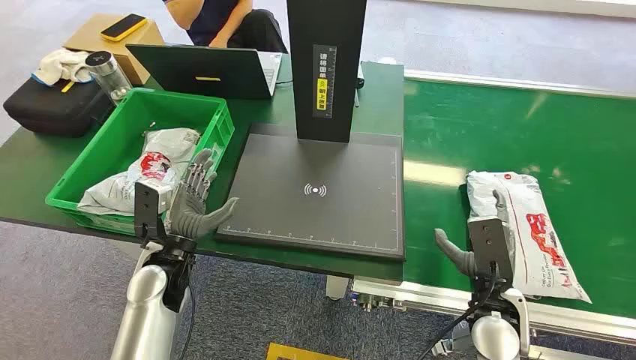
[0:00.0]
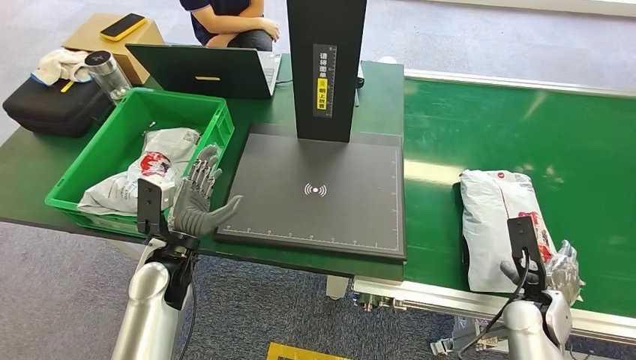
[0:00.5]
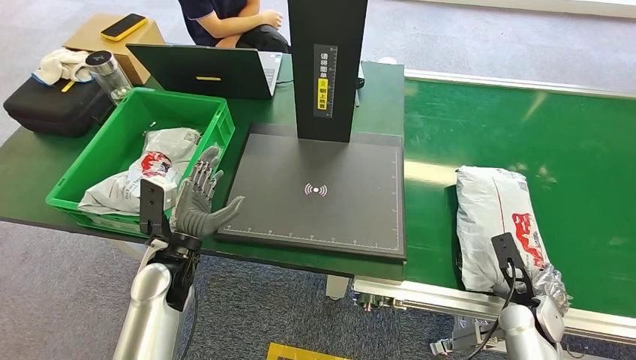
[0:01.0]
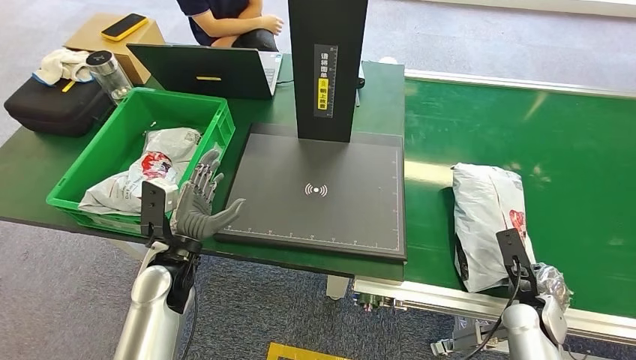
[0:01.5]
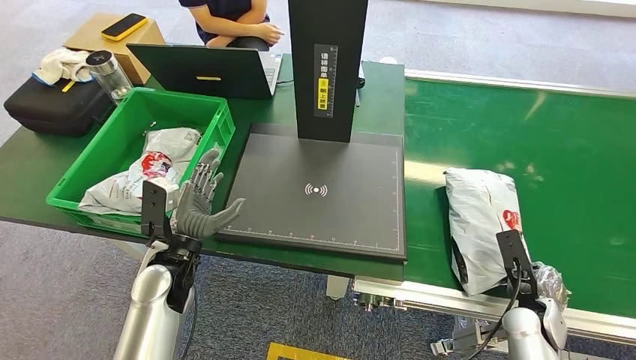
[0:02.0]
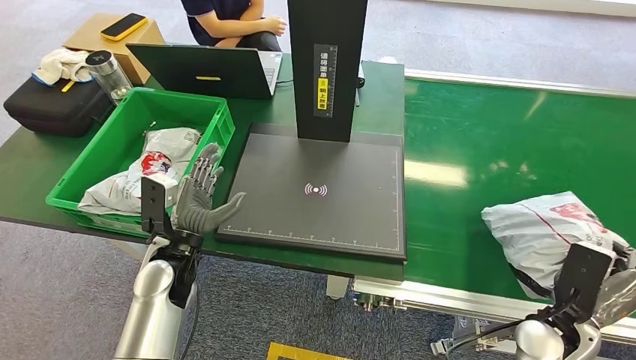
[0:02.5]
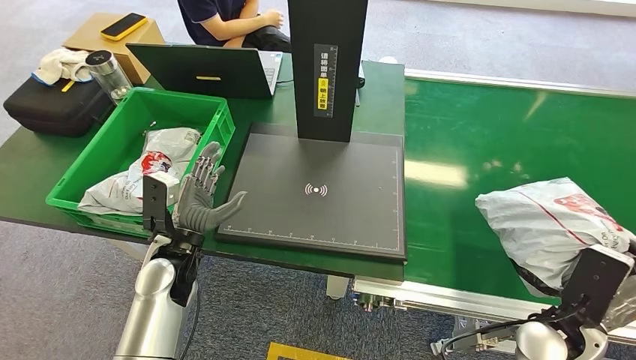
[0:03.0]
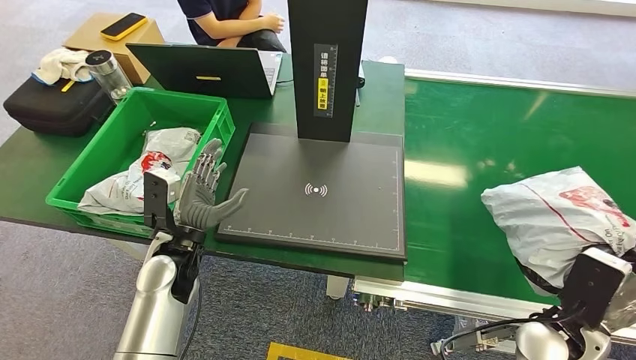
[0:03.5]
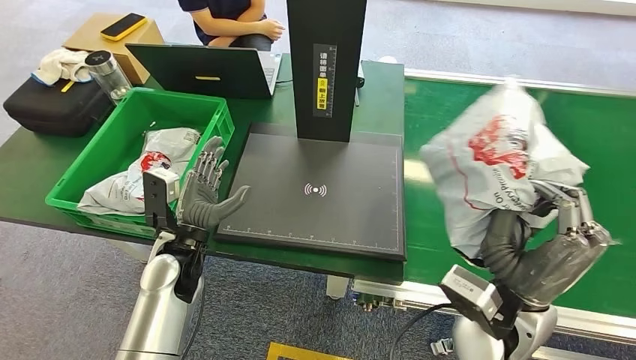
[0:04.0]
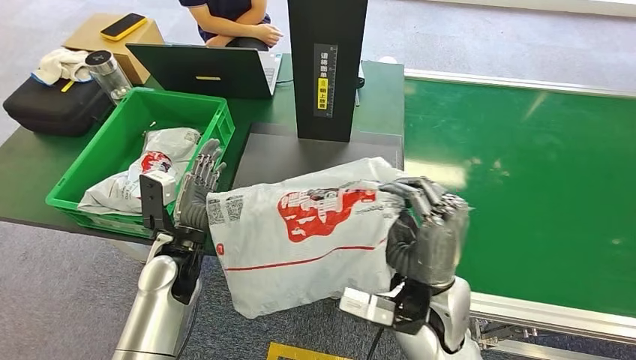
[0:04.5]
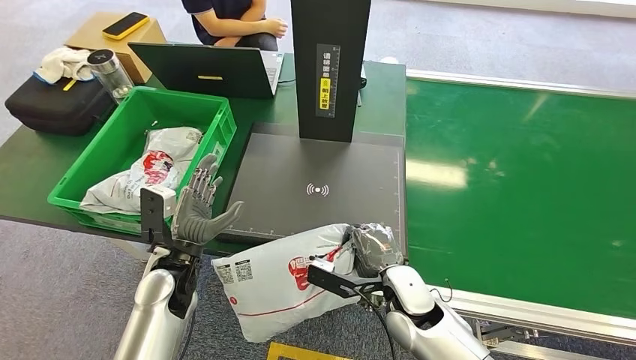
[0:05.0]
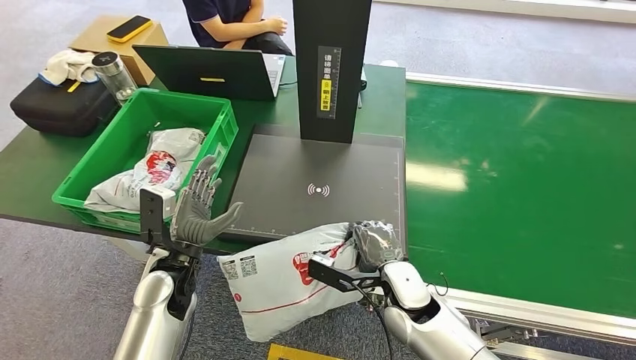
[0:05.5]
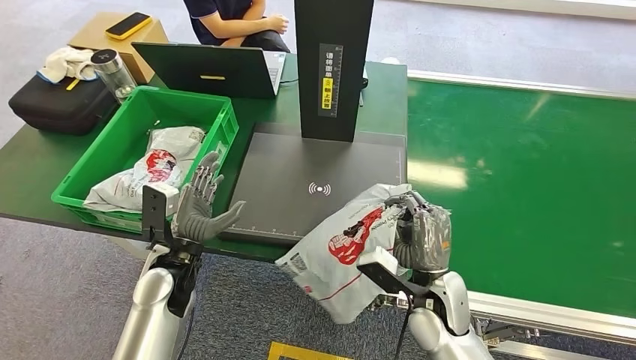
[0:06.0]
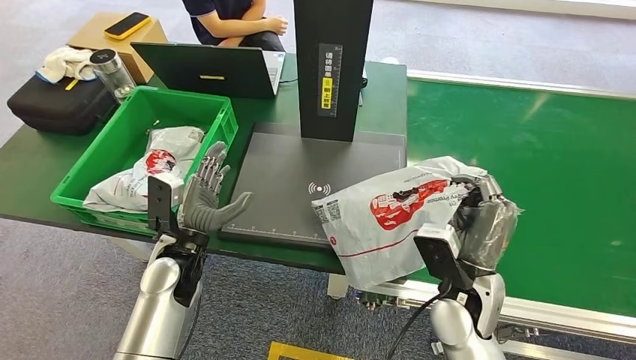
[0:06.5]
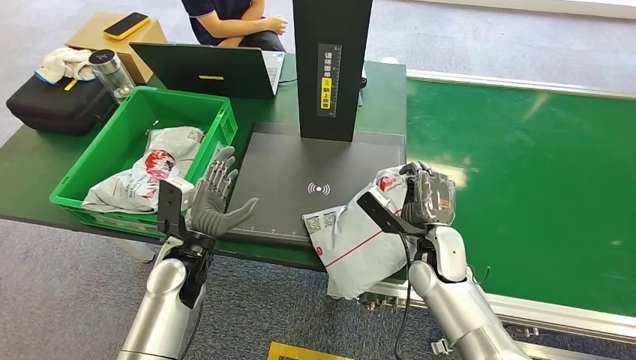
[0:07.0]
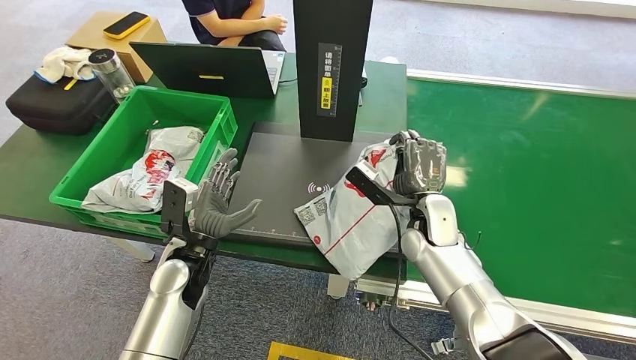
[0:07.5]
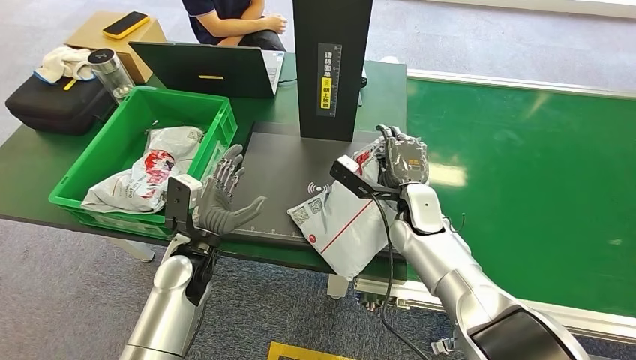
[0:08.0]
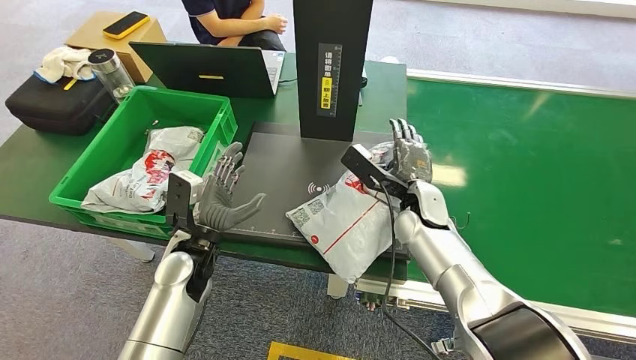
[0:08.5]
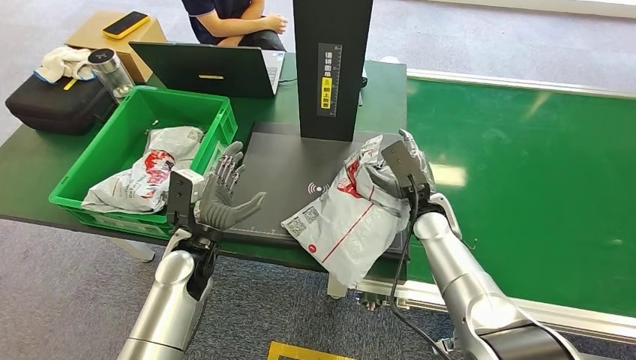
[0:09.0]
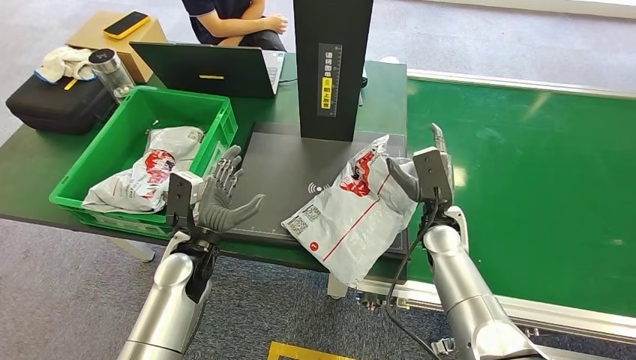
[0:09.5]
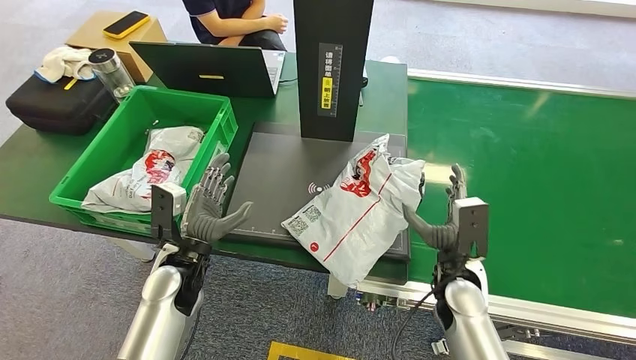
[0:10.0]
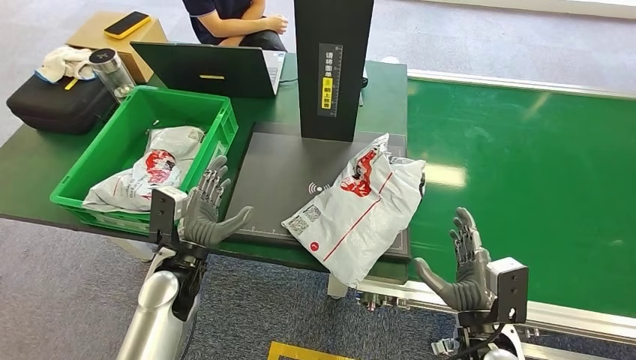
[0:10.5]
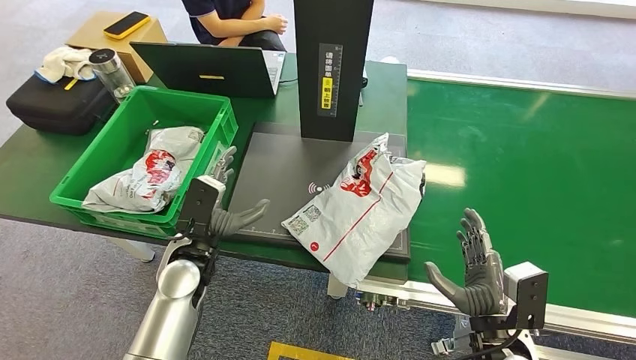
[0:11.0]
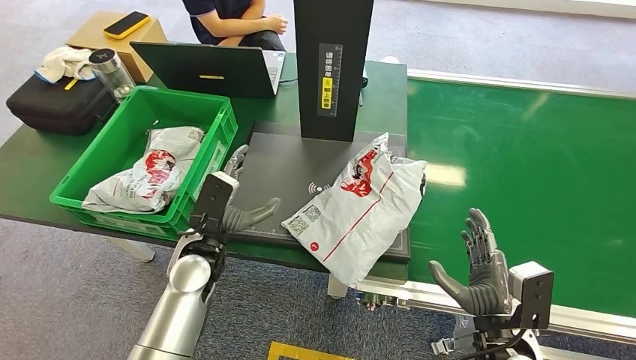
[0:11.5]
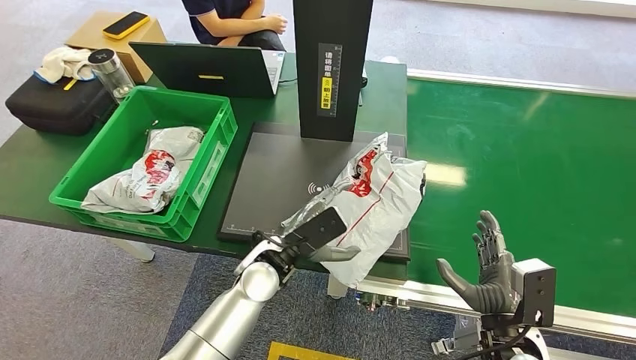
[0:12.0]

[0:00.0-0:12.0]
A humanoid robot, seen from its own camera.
Step, 0:00.0 to 0:03.5: Pick up the package from the conveyor belt.
Step, 0:04.0 to 0:09.5: Place the package onto the inbound machine.
0:08.0 to 0:10.0: The right hand goes about 15 cm backward, downward and to the right.
0:10.0 to 0:12.0: The left hand shifts some 10 cm to the right. The right hand goes approximately 10 cm backward.

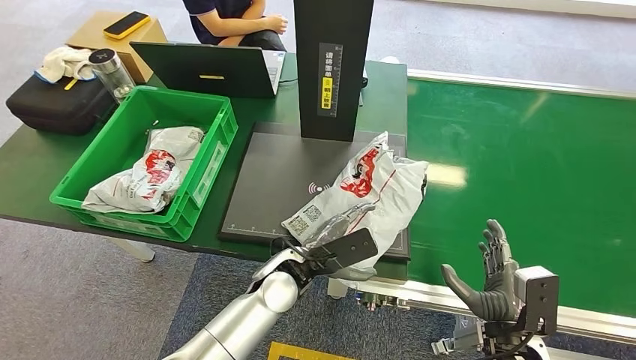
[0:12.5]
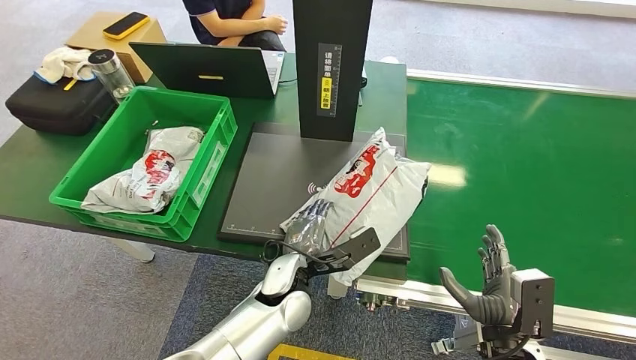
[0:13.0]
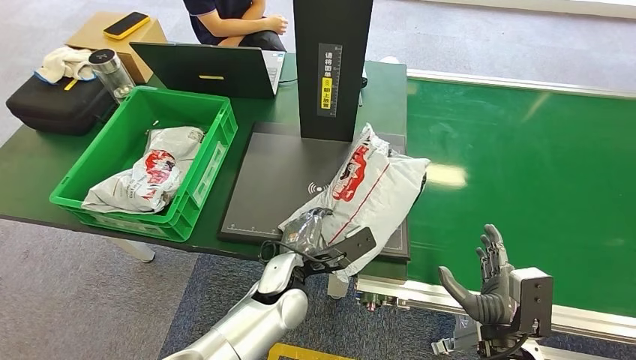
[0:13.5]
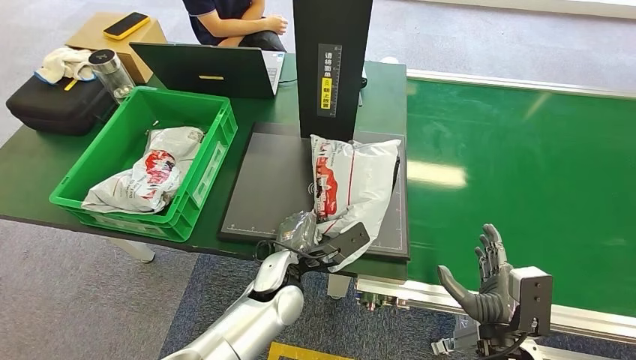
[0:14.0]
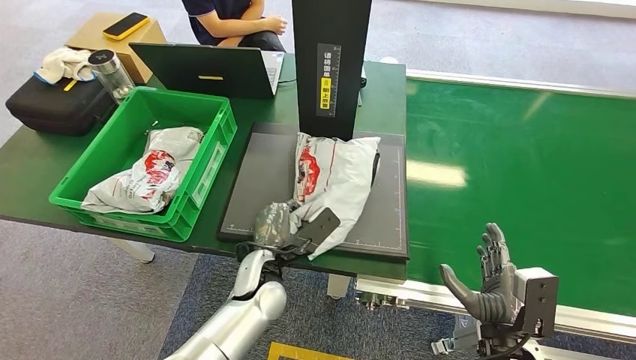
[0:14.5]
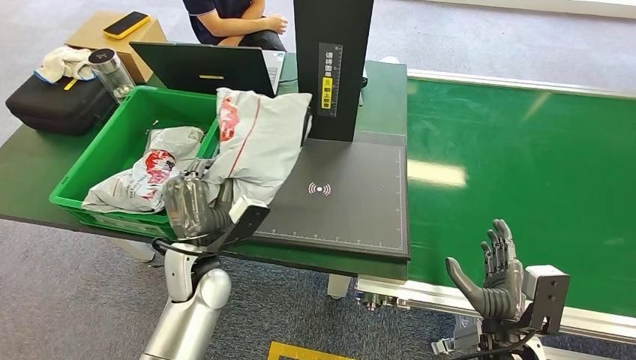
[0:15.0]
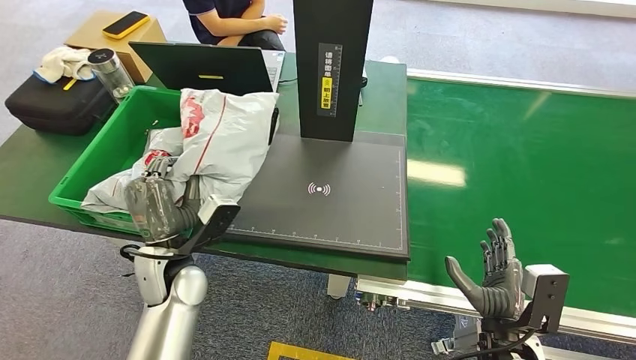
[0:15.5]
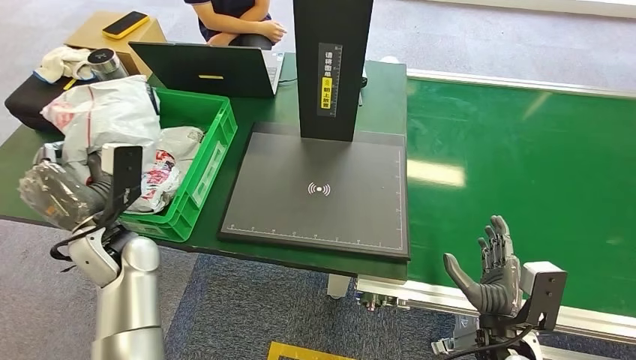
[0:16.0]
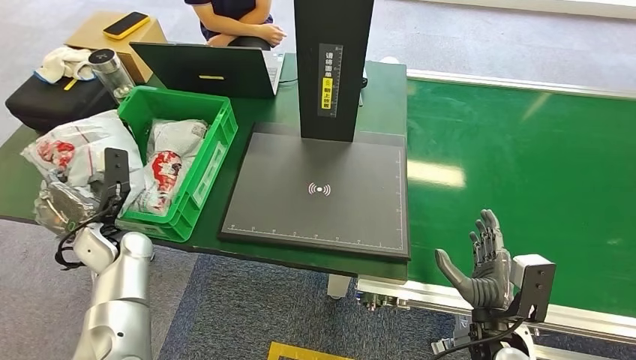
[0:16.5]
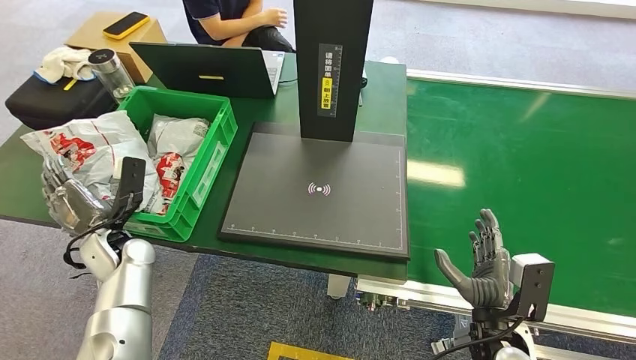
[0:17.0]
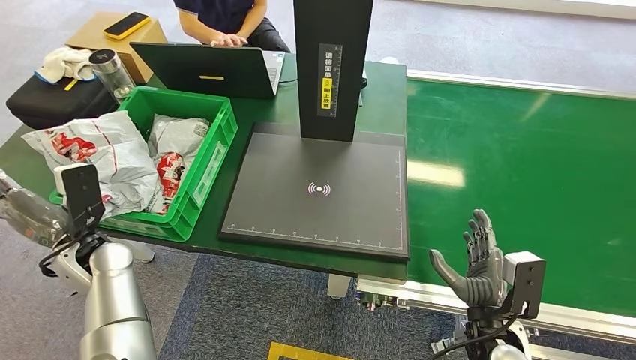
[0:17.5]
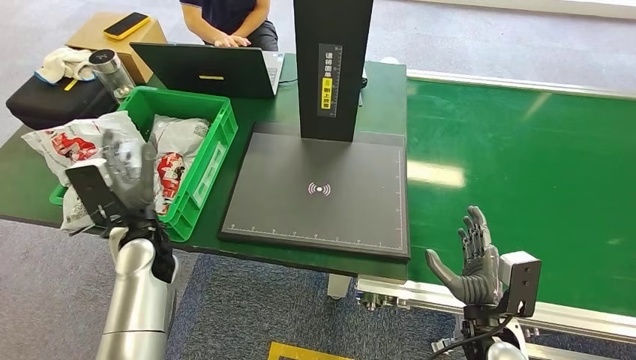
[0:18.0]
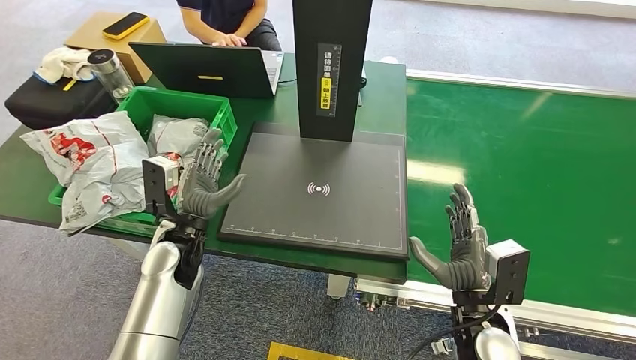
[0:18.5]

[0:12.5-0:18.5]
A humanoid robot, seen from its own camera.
Step, 0:12.5 to 0:14.5: Pick up the package from the inbound machine.
Step, 0:15.0 to 0:18.5: Place the package into the parcel locker.
0:16.5 to 0:18.5: The left hand moves to the right, roughly 10 cm.
